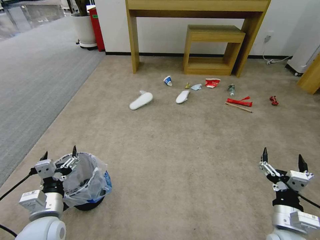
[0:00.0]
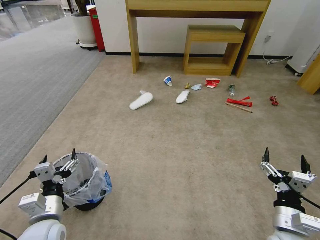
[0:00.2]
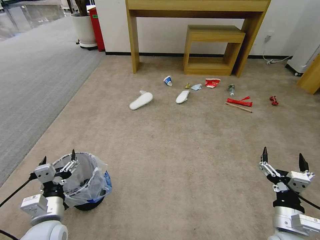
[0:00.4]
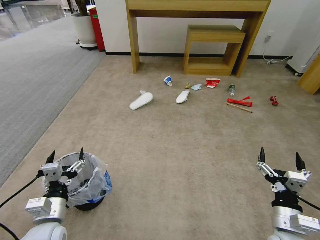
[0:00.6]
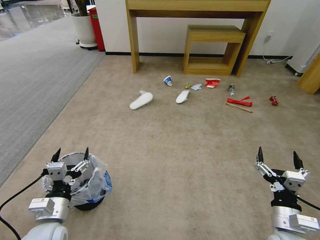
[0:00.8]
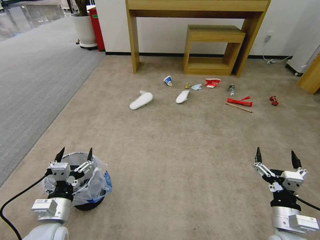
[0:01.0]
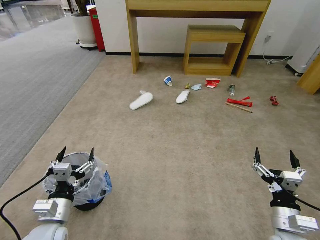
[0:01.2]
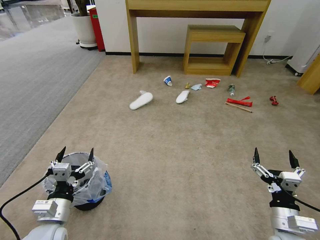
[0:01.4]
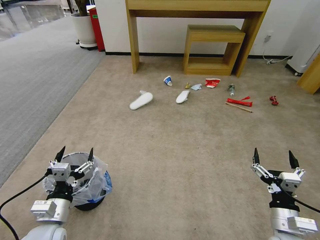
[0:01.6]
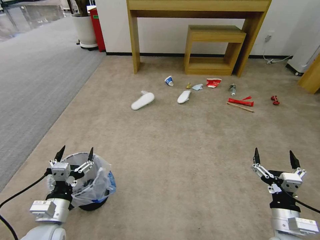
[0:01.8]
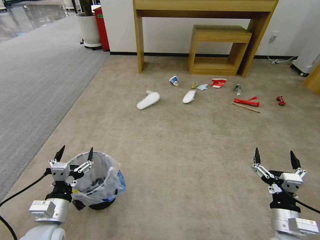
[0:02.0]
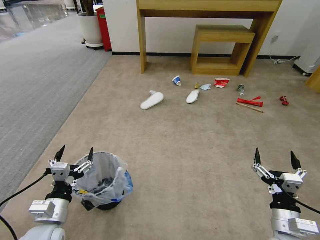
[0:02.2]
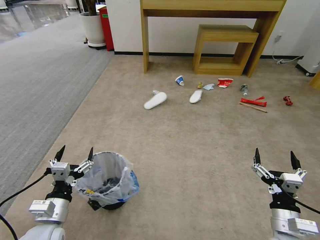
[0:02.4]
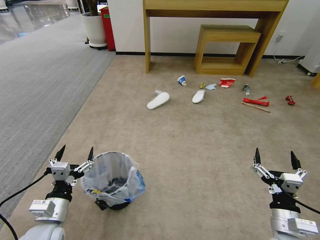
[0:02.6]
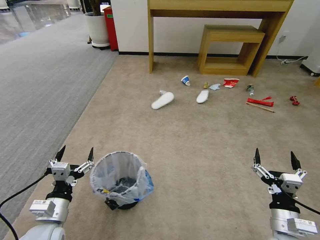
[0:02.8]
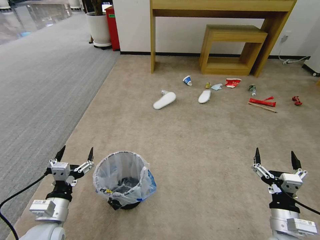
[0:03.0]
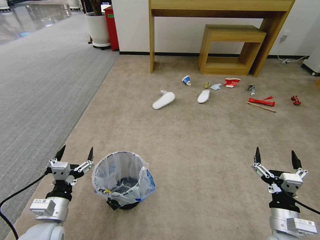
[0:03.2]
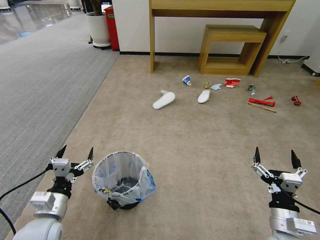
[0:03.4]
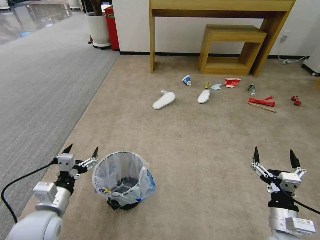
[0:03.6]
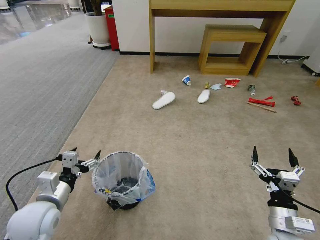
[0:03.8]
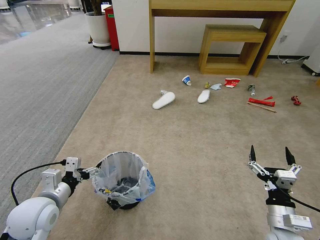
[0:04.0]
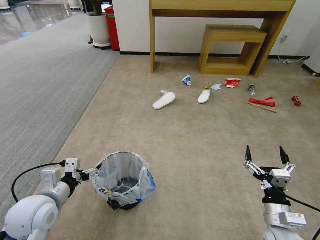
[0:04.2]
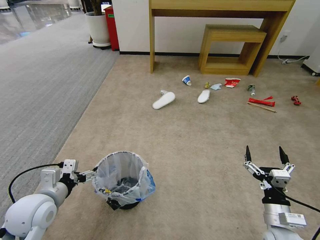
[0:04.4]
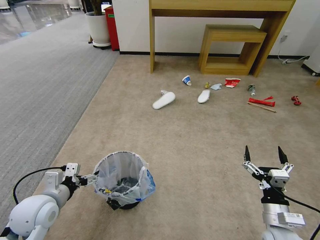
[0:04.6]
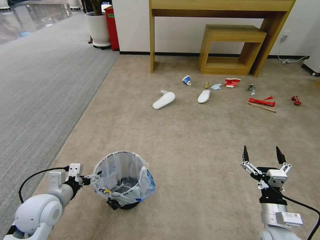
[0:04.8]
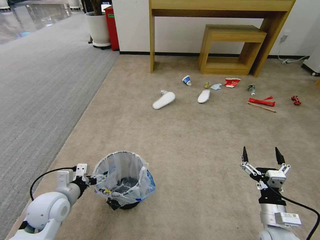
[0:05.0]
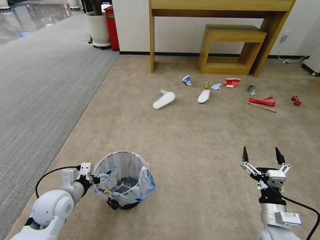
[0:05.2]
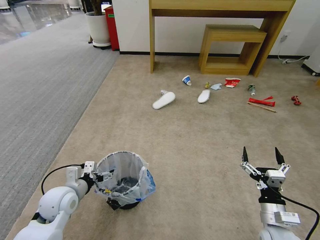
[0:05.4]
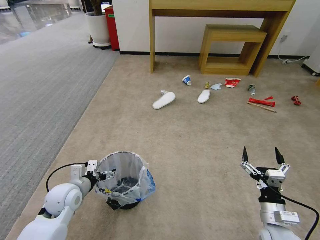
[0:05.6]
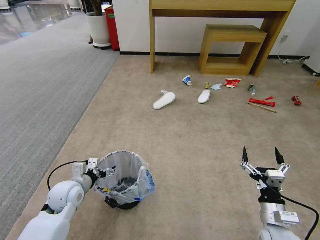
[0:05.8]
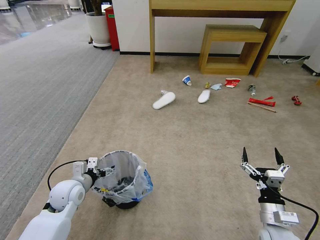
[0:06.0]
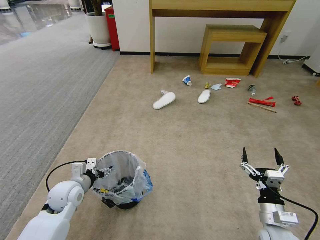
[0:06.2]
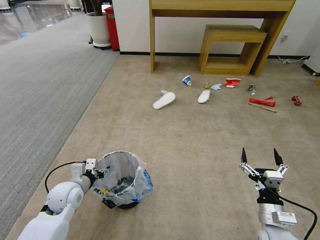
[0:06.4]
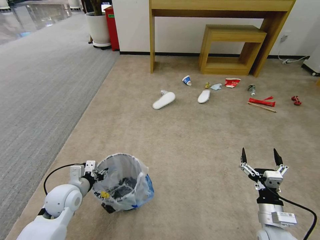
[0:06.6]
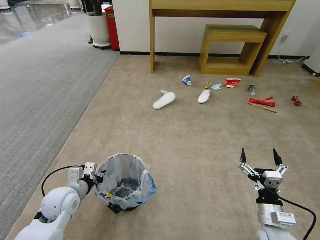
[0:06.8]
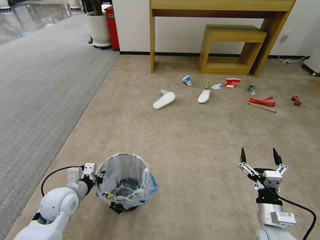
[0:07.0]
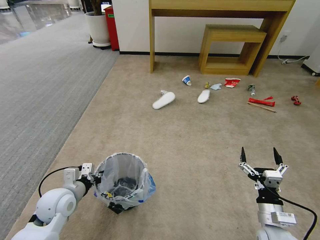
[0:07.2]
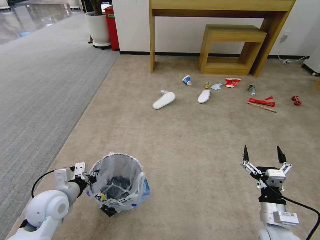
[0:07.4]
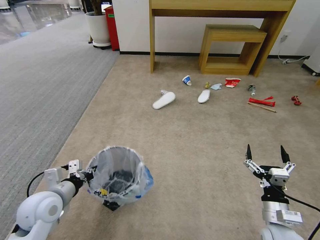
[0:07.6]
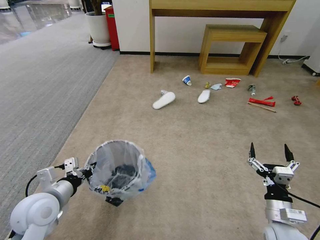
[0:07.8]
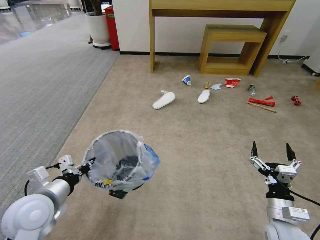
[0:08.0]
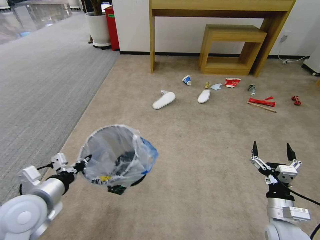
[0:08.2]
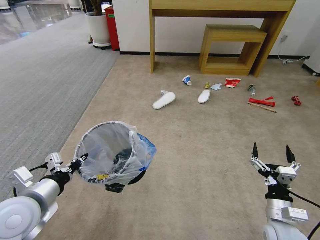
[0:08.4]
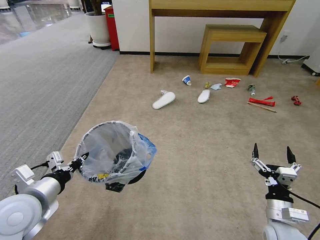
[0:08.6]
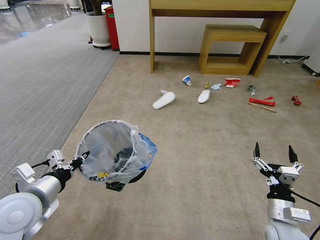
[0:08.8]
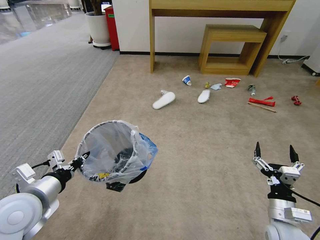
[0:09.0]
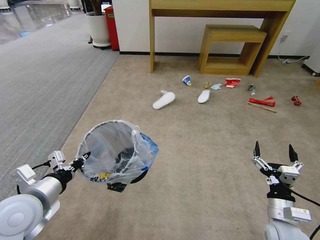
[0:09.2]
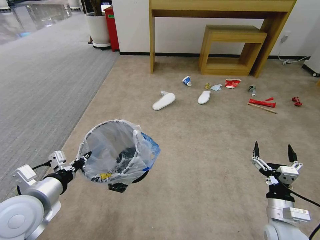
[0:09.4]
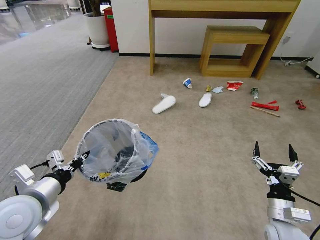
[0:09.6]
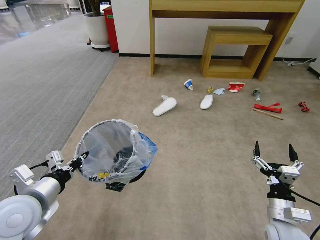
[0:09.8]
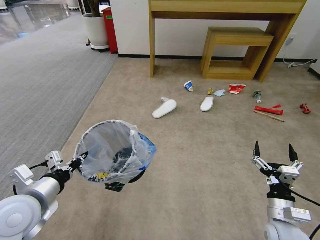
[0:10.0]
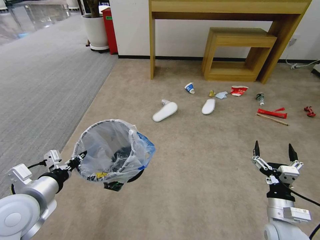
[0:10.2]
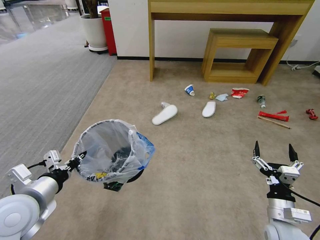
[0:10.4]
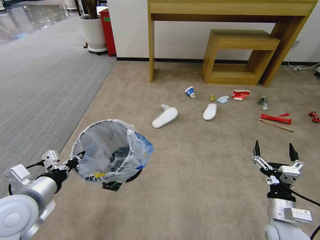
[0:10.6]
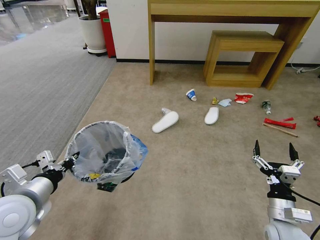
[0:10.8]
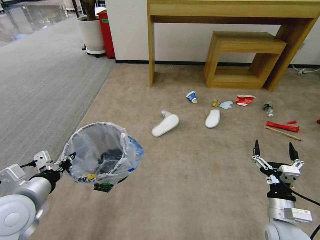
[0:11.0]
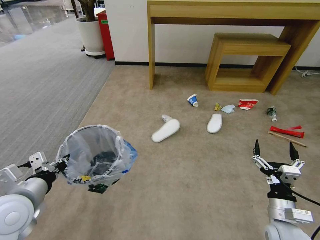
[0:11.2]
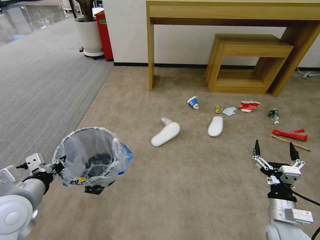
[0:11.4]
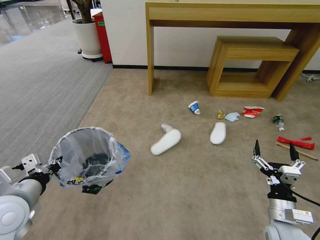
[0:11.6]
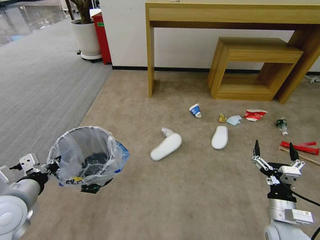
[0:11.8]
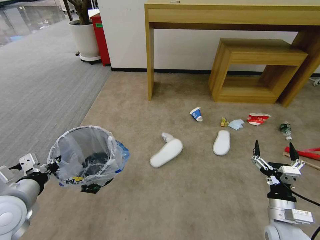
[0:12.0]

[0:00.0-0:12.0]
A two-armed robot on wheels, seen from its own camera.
Task of the whole recording: Pick up the trash bin and place the garbage on the floor into it.
0:03.0 to 0:04.4: The left gripper heads forward and upward, covering some 10 cm.
0:04.4 to 0:06.0: The left gripper shifts approximately 10 cm downward and forward.
0:06.0 to 0:07.6: The left gripper moves upward and backward, some 10 cm, and closes up.
0:07.6 to 0:09.0: The left gripper is displaced upward by some 5 cm.
0:09.0 to 0:10.4: Both grippers stay put.

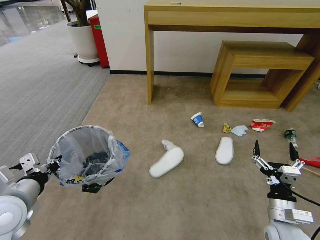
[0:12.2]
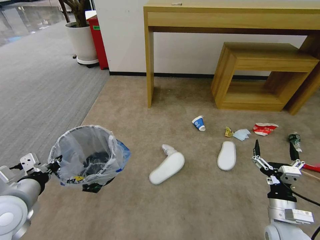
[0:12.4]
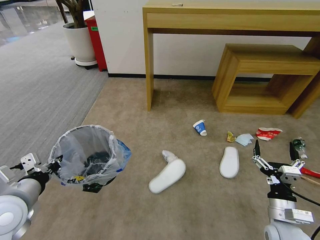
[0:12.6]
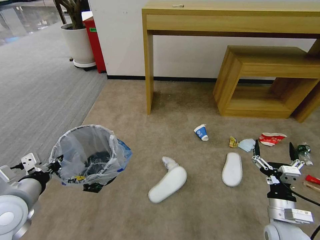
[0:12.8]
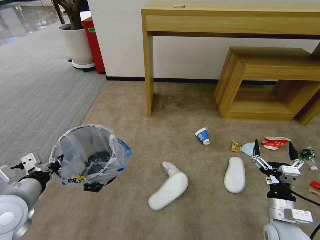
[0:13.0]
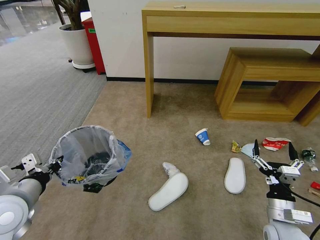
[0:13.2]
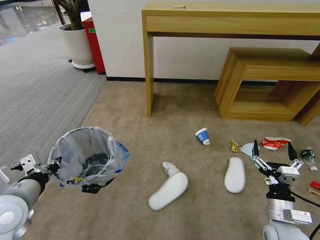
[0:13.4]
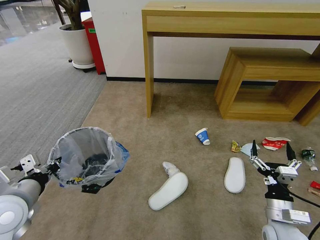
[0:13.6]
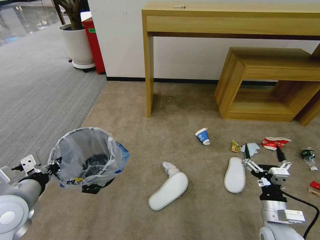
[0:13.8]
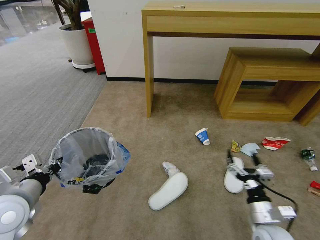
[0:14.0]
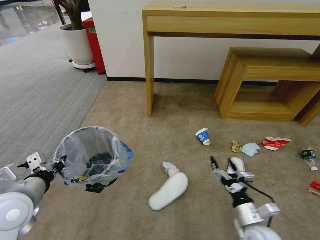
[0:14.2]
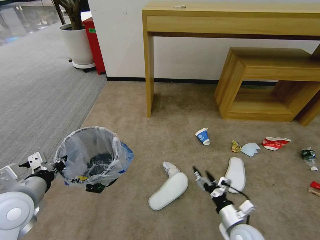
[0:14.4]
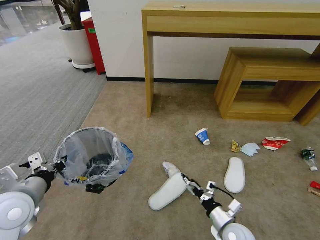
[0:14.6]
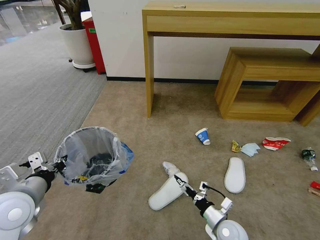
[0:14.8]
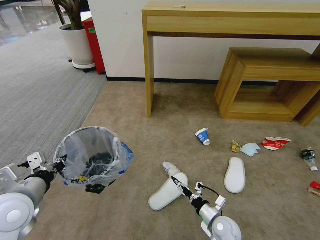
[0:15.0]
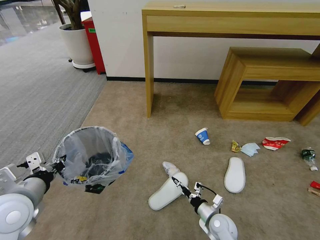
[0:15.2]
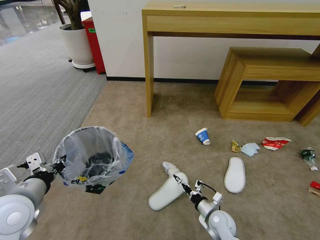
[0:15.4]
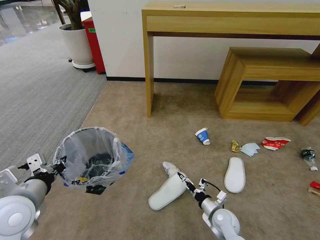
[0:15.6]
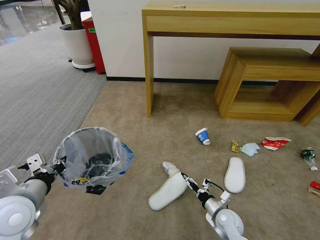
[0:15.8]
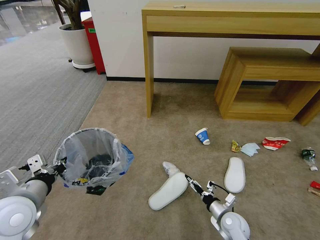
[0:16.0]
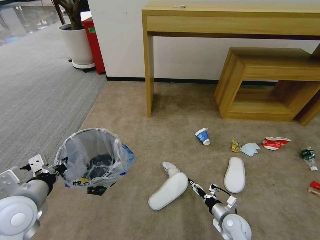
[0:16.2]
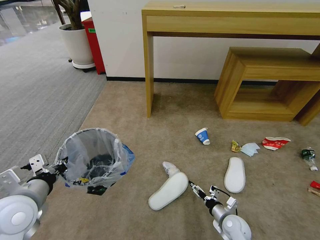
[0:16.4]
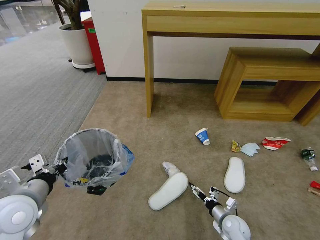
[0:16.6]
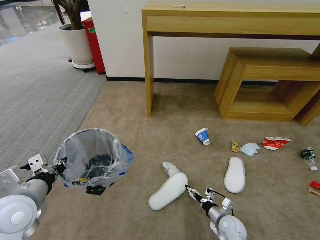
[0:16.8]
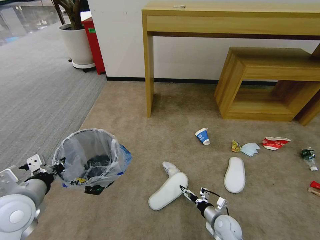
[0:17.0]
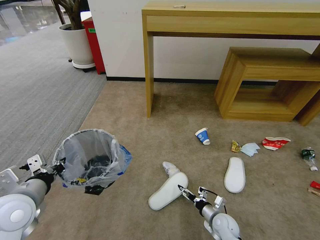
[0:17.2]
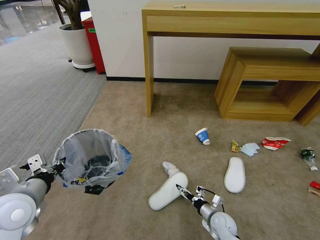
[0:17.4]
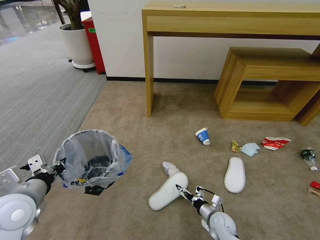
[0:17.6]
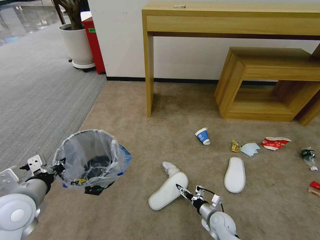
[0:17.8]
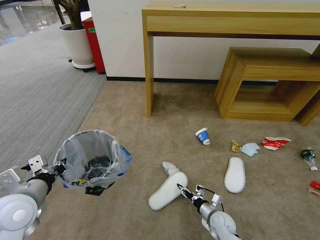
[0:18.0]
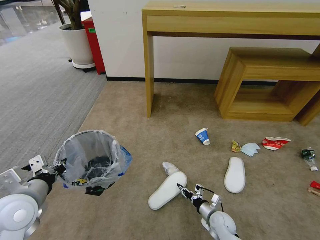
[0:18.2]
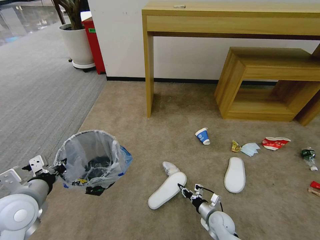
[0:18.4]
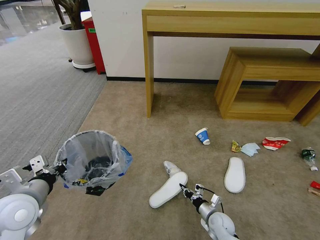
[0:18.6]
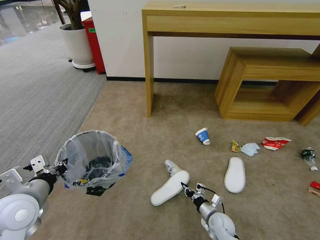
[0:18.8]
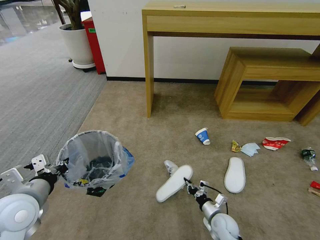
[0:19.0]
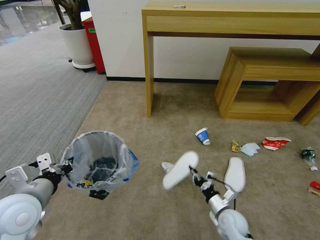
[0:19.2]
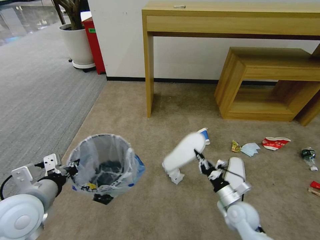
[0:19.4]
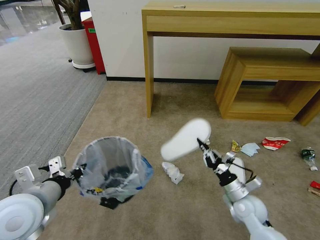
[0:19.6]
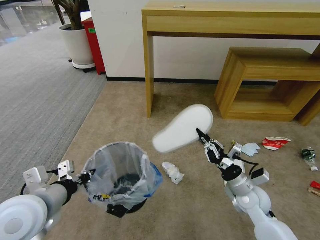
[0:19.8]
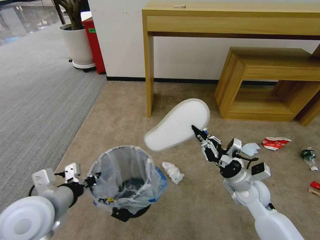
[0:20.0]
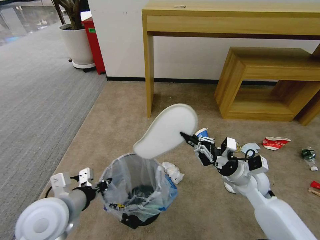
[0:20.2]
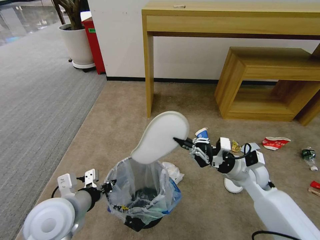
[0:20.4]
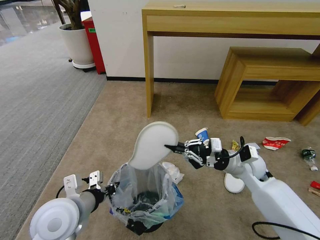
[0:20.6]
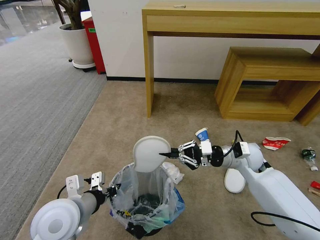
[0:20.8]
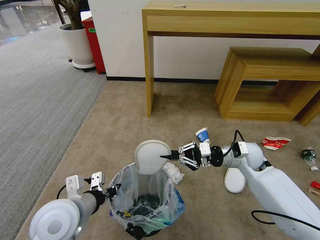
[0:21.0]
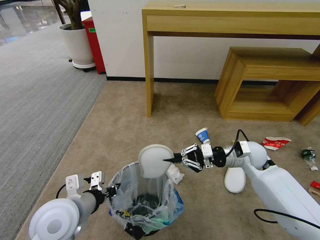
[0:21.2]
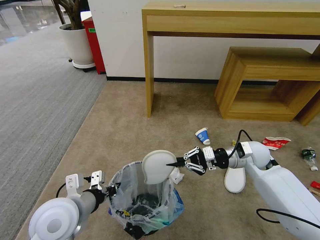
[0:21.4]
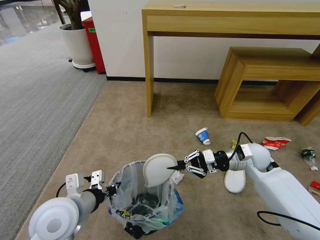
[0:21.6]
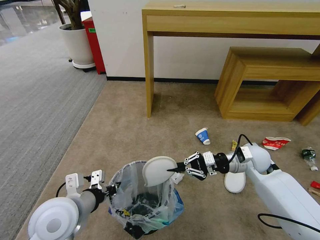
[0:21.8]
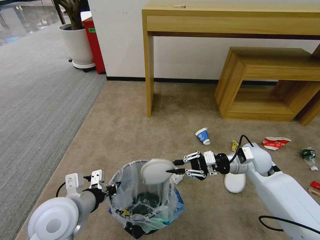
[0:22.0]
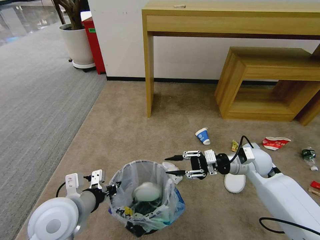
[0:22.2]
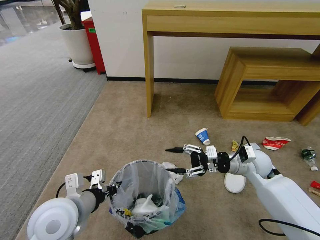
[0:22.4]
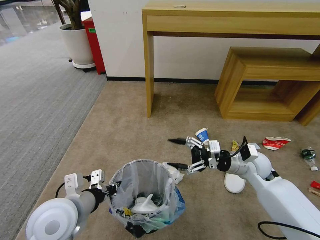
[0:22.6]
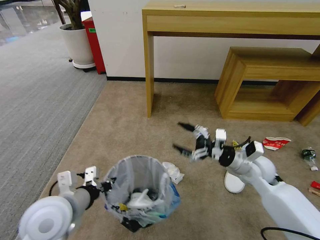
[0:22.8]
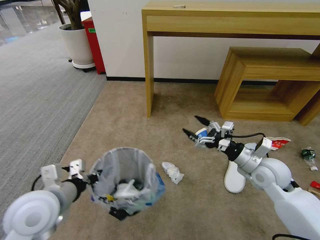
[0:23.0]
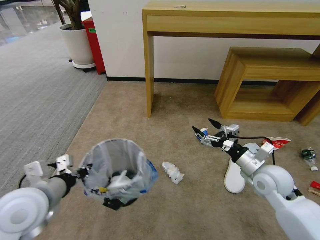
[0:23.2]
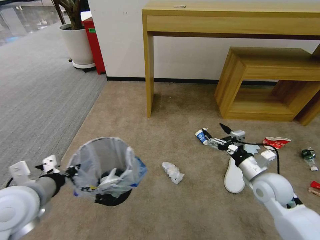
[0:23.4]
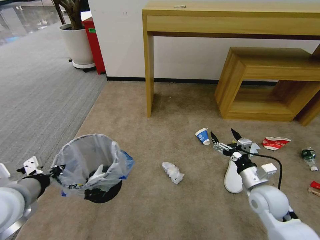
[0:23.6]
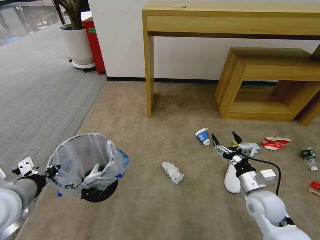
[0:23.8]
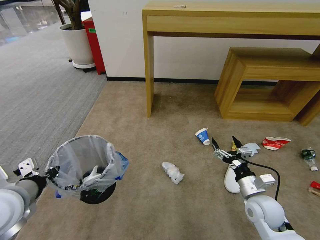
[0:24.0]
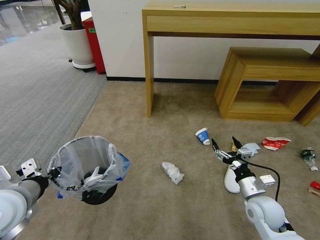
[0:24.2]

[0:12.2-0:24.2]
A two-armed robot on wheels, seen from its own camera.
Task of the whole recording: Pick up the trash bin and place the garbage on the floor into it.
0:13.8 to 0:15.2: The right gripper shifts roughly 20 cm downward, to the left and forward.
0:15.2 to 0:16.6: The right gripper goes about 5 cm to the right.
0:16.6 to 0:18.2: The right gripper changes place by some 5 cm, and closes up.
0:18.2 to 0:19.8: The right gripper shifts about 20 cm upward, and closes up. The left gripper shifts by roughly 5 cm.
0:19.8 to 0:21.2: The left gripper moves to the right, roughly 5 cm. Meanwhile the right gripper travels forward and upward by some 15 cm.
0:21.2 to 0:22.6: The right gripper opens.
0:22.6 to 0:24.2: The left gripper goes about 10 cm to the left; the right gripper is displaced backward and downward by roughly 15 cm.
